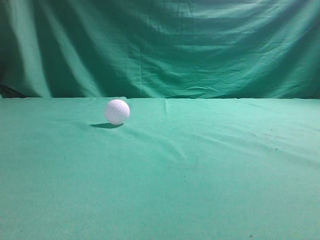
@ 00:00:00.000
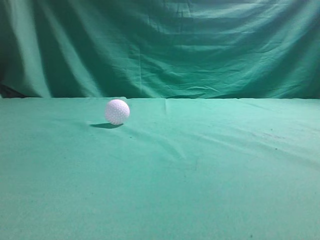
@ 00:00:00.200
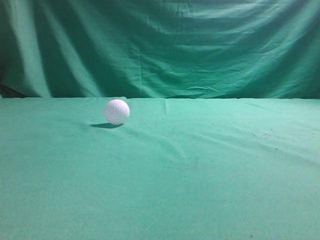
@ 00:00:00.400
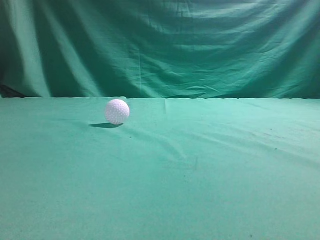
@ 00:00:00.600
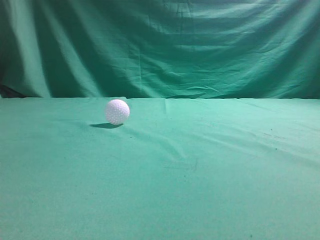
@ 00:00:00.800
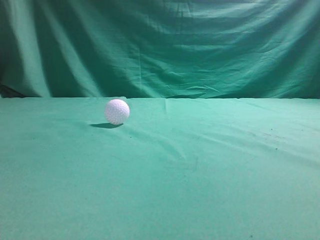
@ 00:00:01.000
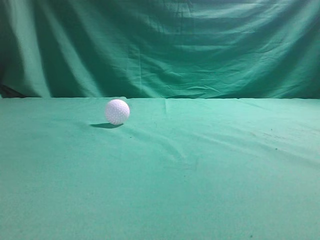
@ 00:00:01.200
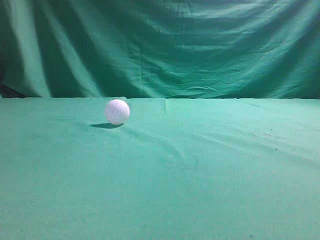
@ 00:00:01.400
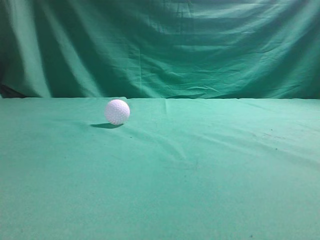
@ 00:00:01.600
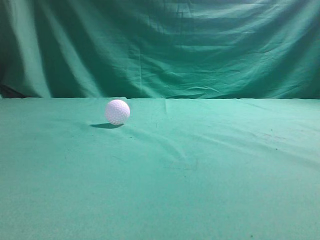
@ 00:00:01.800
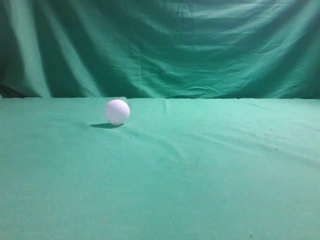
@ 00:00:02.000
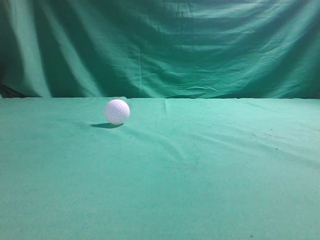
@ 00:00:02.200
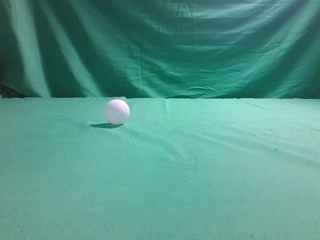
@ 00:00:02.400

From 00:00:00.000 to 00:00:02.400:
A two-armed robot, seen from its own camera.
Task of the whole recording: pick up the ball and place it on the plate, then pick up the ball from the plate and put it in the center of the table.
From 00:00:01.200 to 00:00:02.400: Both grippers stay put.
